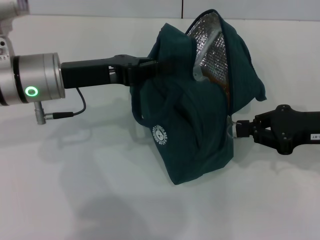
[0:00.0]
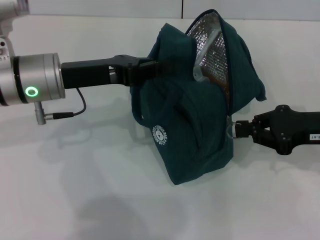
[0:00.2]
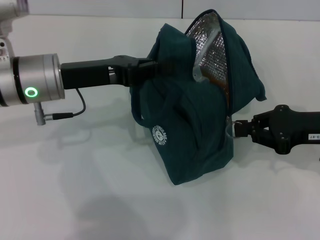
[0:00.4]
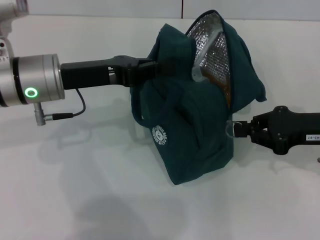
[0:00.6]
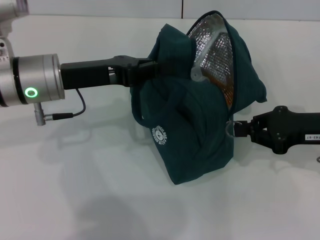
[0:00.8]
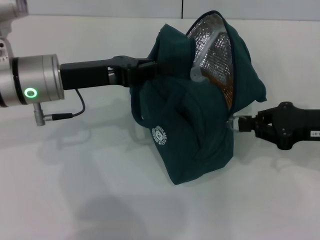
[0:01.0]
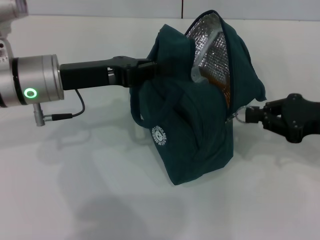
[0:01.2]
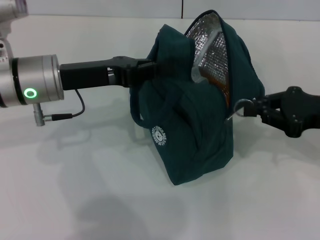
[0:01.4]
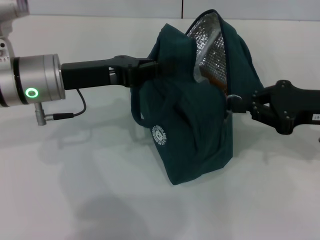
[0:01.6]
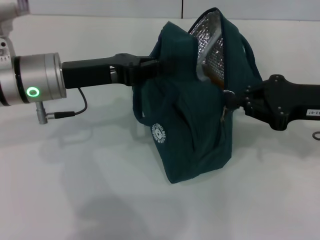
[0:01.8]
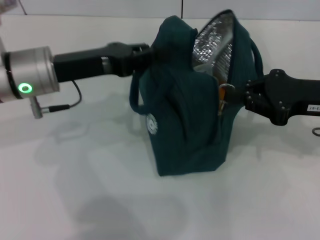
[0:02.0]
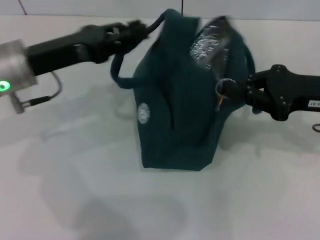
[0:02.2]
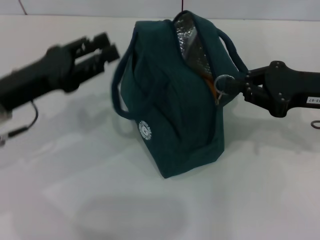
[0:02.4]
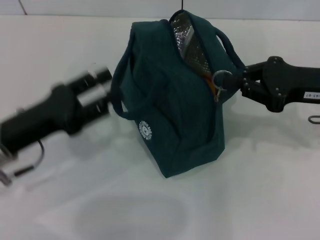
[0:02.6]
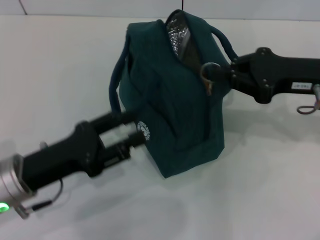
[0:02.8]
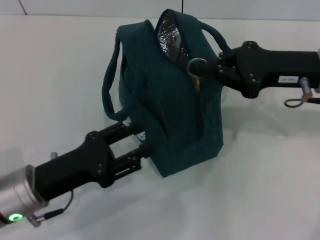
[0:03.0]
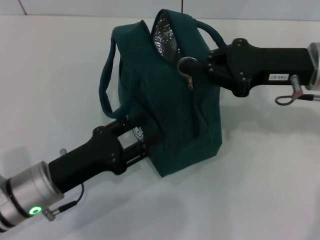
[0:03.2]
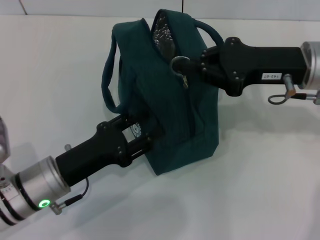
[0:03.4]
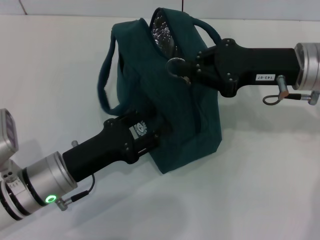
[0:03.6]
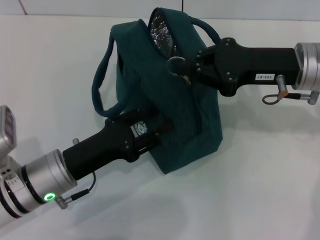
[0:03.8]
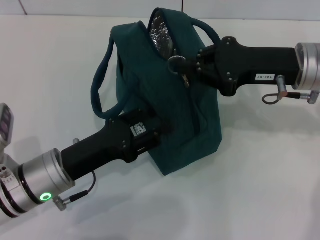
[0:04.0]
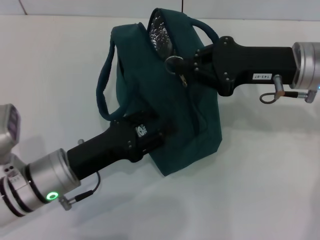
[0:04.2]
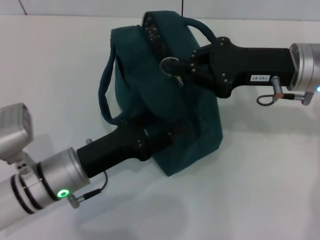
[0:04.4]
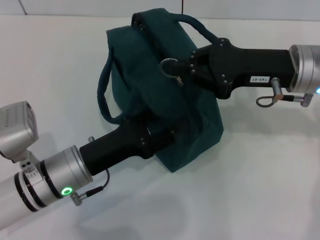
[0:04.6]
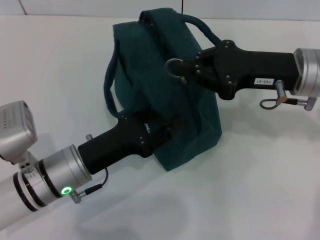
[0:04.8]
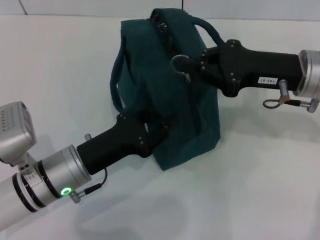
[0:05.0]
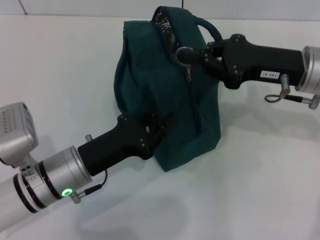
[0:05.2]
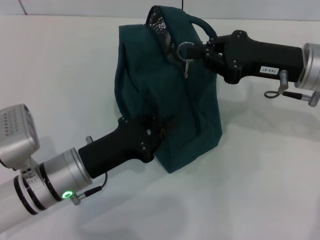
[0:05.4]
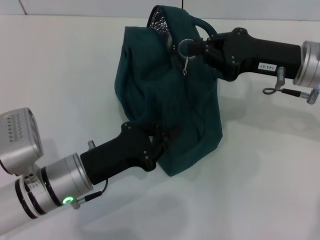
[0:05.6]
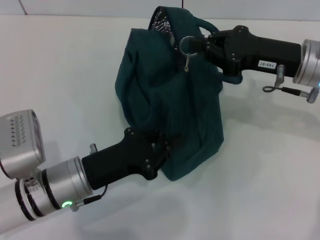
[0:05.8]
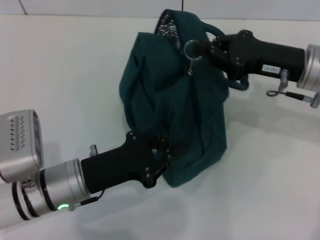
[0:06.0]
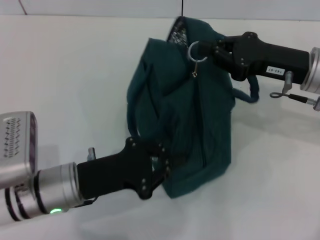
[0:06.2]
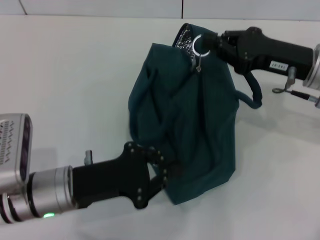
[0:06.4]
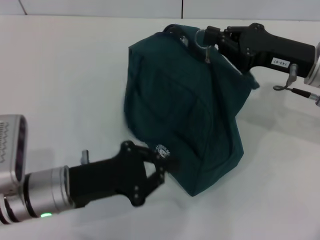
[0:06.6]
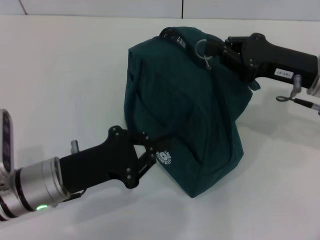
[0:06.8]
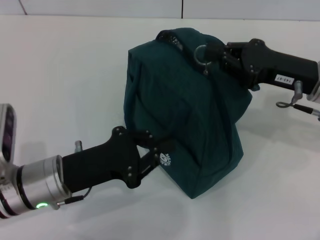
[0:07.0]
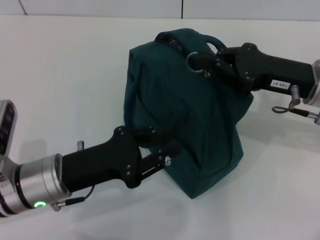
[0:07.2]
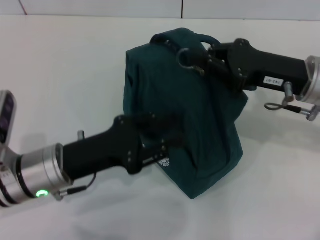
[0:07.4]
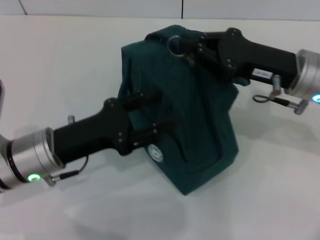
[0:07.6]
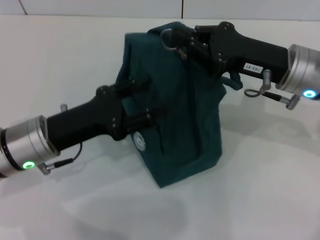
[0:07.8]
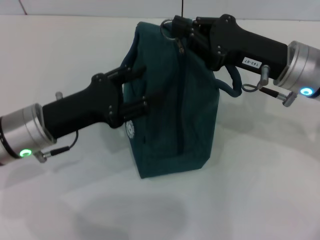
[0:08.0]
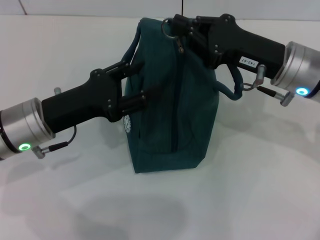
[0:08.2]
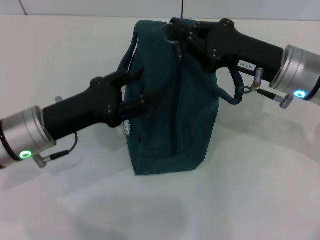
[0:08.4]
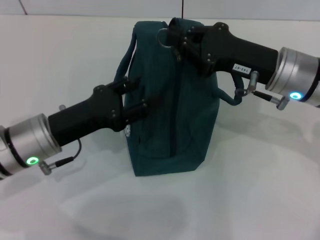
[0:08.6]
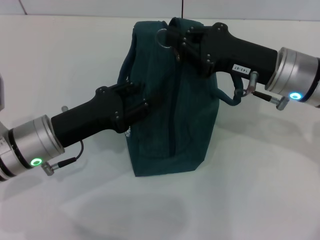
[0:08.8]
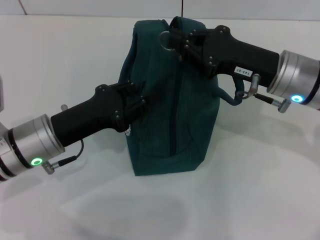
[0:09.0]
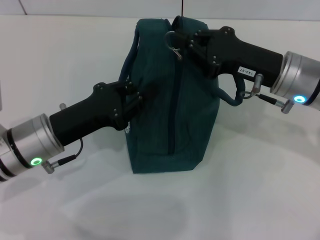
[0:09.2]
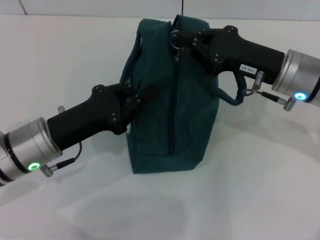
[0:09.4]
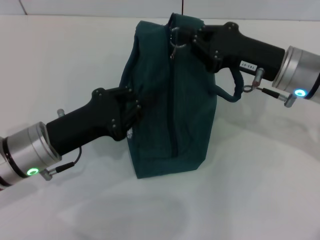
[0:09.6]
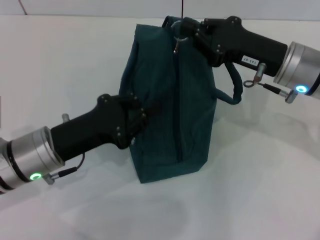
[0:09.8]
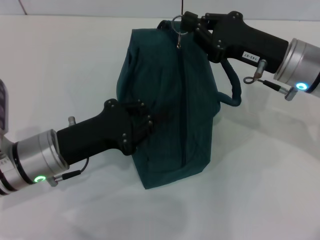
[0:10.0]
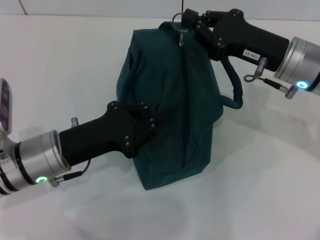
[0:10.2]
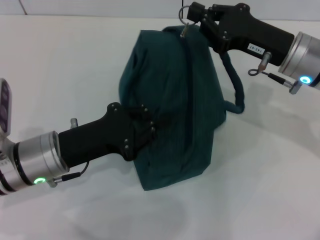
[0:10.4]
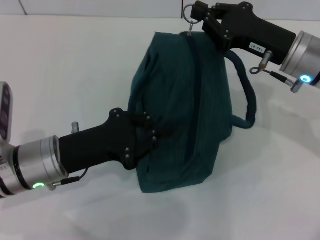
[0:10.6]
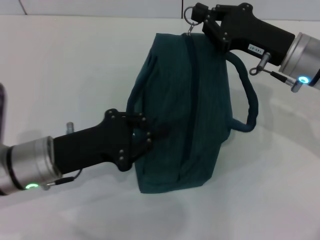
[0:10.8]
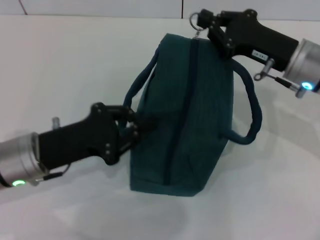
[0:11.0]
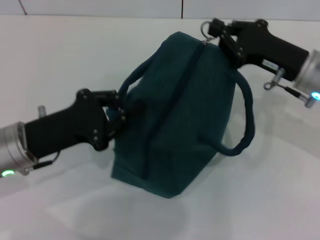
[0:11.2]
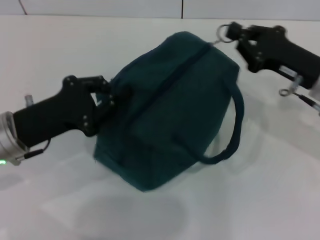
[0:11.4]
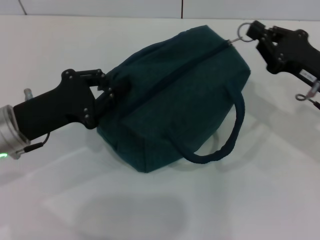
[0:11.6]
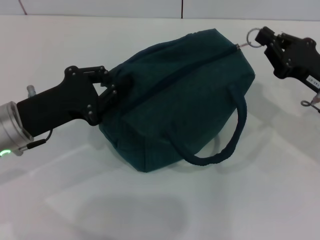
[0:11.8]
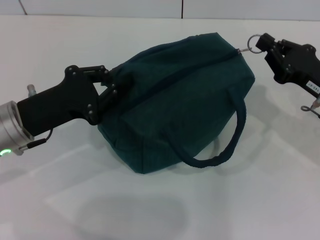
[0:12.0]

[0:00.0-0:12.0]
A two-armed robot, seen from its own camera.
0:00.0 to 0:01.6: The grippers make only small movements.
0:01.6 to 0:03.0: The right gripper changes place by about 5 cm. The left gripper goes roughly 15 cm backward and downward, and opens.
0:03.0 to 0:04.4: The left gripper ends up some 5 cm from where it was.
0:04.4 to 0:06.0: The left gripper closes.
0:06.0 to 0:07.6: The left gripper ends up approximately 5 cm from where it was, and opens up.
0:07.6 to 0:09.0: The left gripper opens, then closes again.
0:09.0 to 0:10.4: The left gripper closes.
0:10.4 to 0:12.0: The right gripper goes about 10 cm to the right and downward. Meanwhile the left gripper changes place by roughly 5 cm.

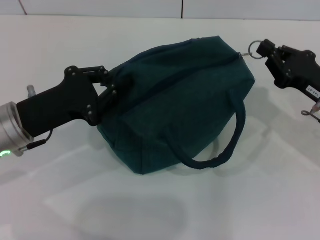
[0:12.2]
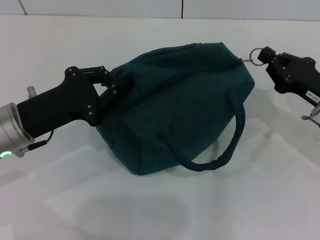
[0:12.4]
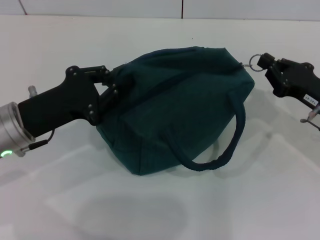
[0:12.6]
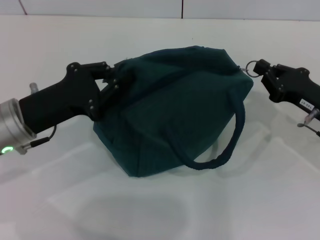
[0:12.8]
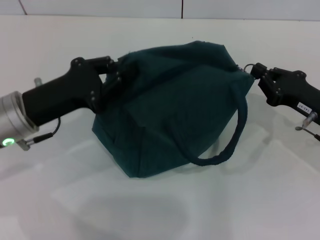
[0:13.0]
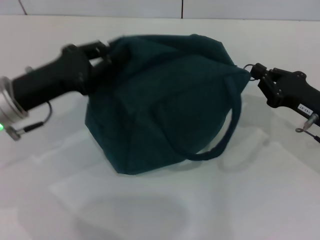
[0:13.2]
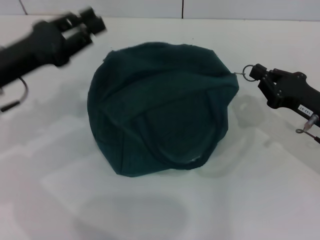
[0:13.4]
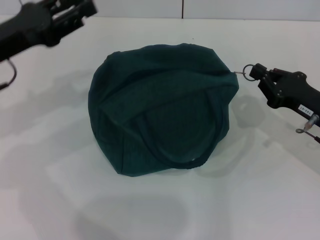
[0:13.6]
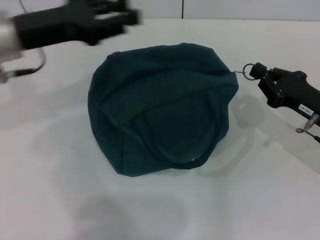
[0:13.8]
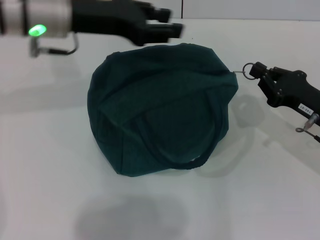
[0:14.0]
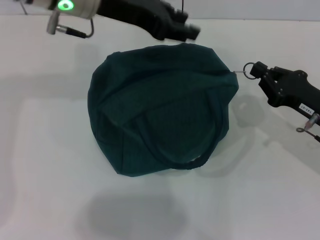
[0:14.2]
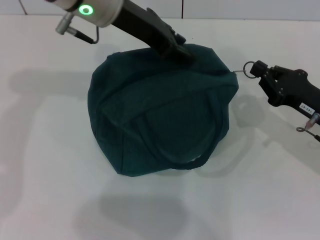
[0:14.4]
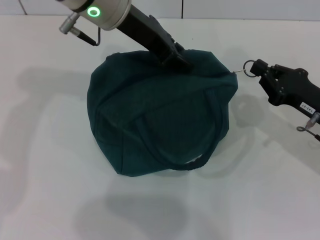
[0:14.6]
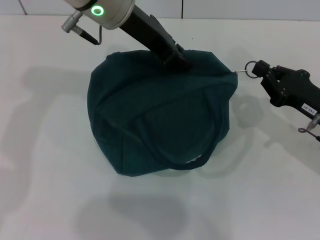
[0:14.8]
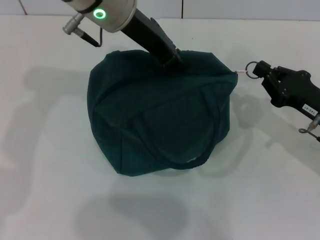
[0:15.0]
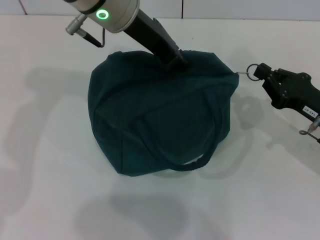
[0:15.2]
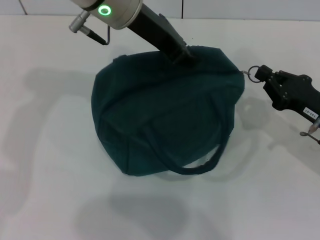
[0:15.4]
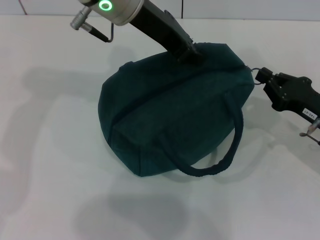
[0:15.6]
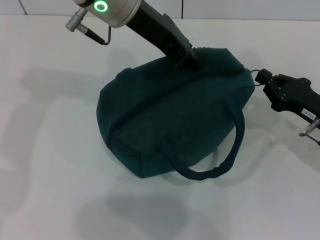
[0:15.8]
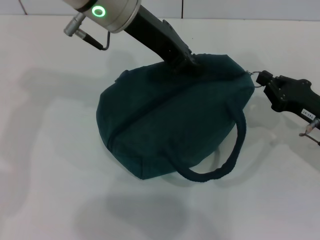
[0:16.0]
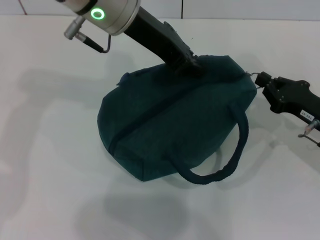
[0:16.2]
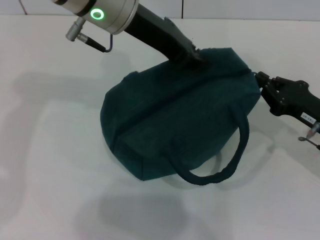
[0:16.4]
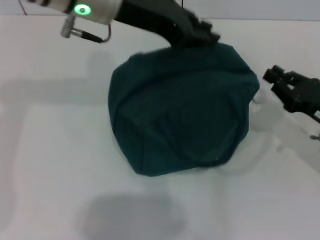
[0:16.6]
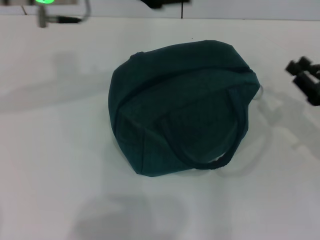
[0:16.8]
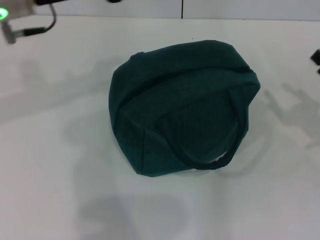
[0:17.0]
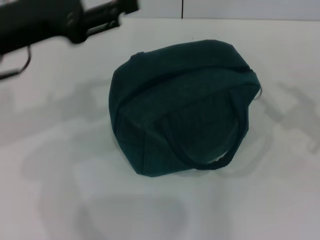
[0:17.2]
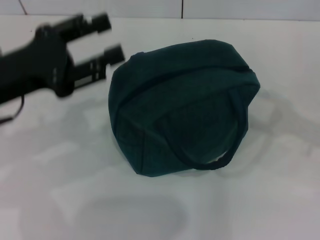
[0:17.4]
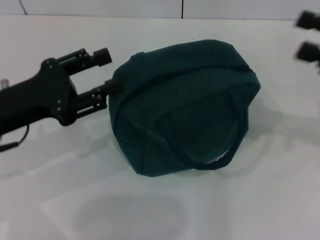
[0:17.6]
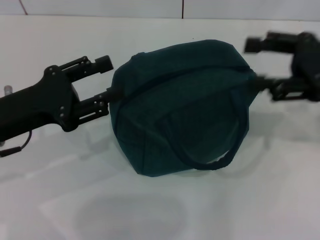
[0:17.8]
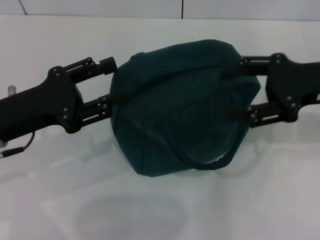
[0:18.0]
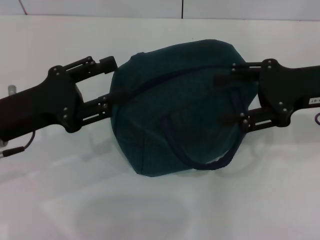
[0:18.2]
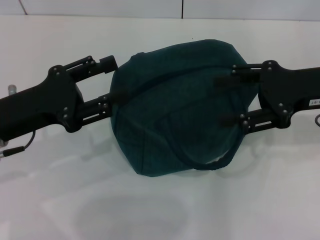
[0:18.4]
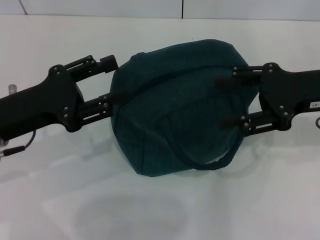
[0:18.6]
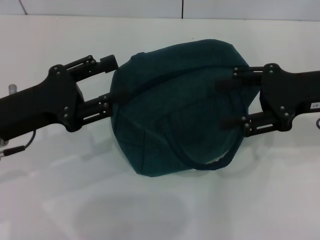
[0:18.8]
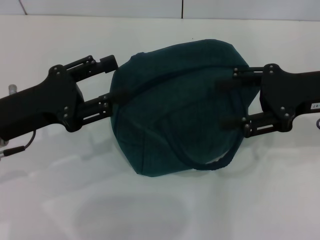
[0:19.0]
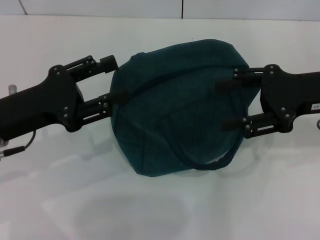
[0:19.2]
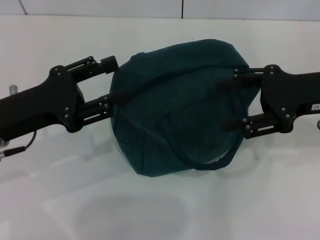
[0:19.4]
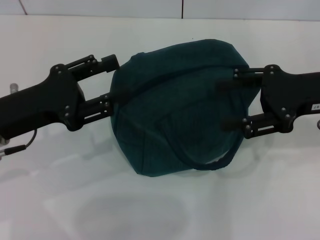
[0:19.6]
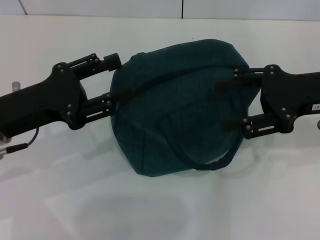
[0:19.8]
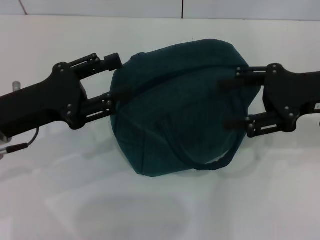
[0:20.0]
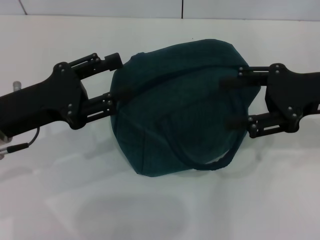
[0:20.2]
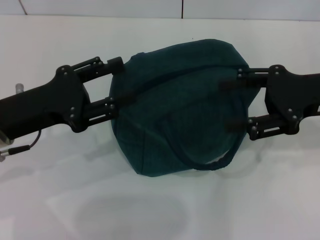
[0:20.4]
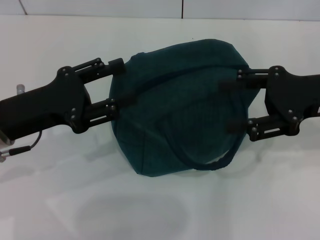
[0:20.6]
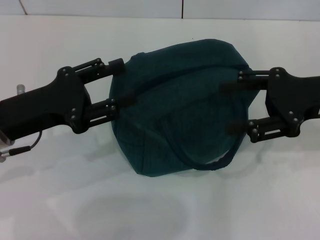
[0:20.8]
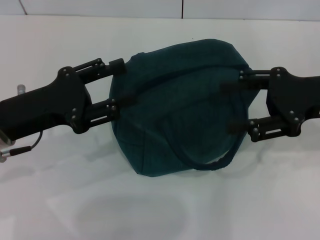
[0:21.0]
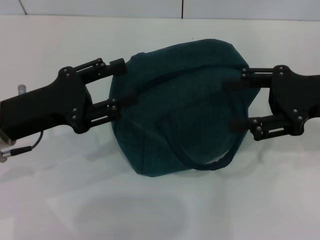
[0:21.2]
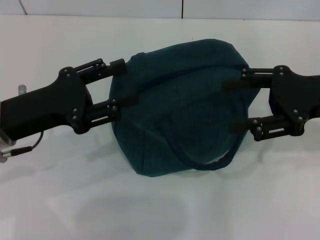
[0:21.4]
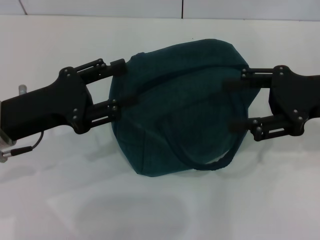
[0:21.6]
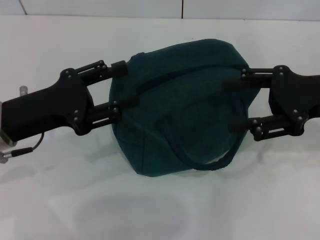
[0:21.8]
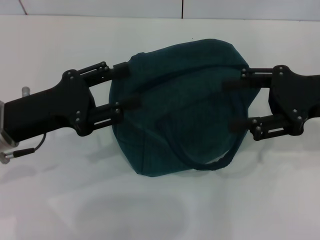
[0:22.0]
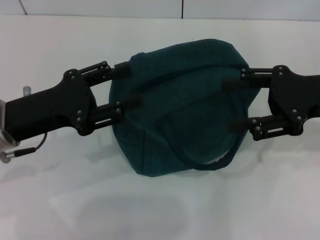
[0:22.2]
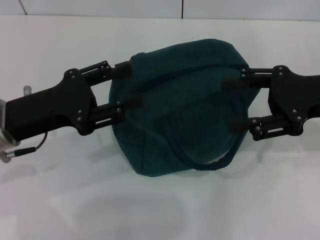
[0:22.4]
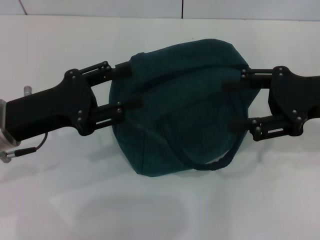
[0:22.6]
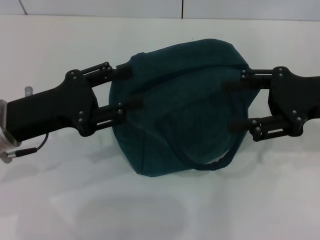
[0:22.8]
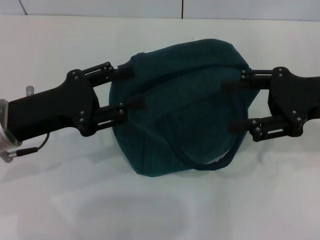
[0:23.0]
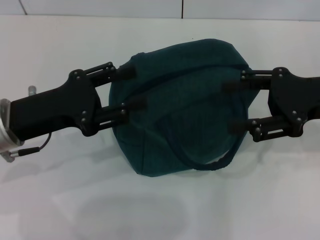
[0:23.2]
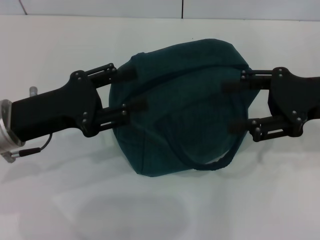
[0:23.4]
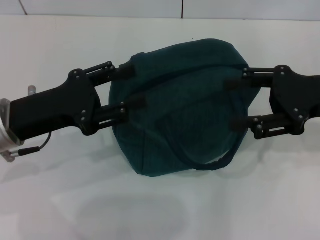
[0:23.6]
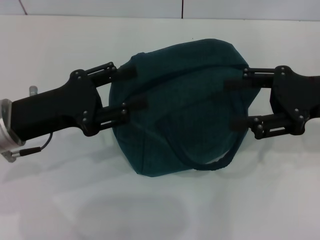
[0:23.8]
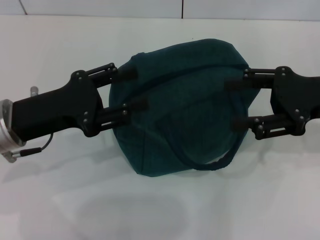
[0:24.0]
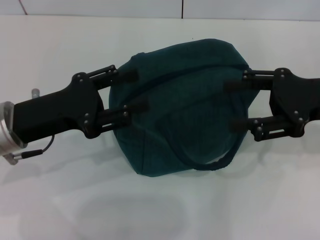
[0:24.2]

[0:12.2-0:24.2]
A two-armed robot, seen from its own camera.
Step, 0:12.2 to 0:16.4: Hold the lunch bag with your left hand.
0:12.2 to 0:13.8: The left gripper moves upward and forward, some 10 cm, and opens.
0:13.8 to 0:15.2: The left gripper travels to the right by roughly 15 cm.
0:16.6 to 0:18.2: The left gripper heads to the left, downward and backward, covering approximately 20 cm, and opens. Meanwhile the right gripper shifts some 15 cm upward, and opens up.
0:18.2 to 0:19.8: Neither gripper changes place.
0:19.8 to 0:22.6: Both grippers stay about where they are.
0:22.6 to 0:24.2: Neither gripper changes place.
